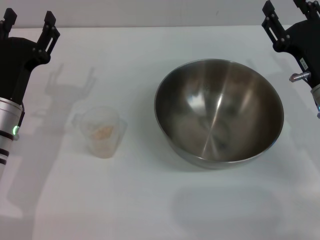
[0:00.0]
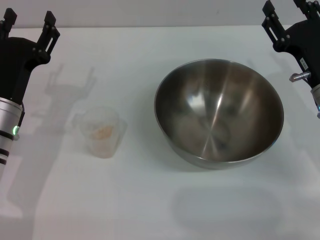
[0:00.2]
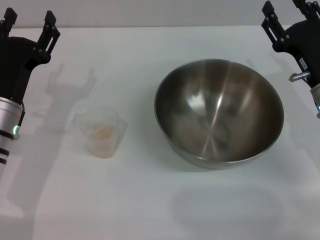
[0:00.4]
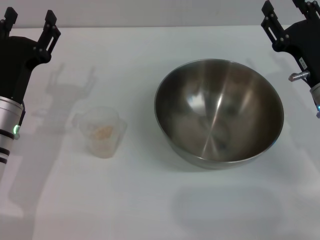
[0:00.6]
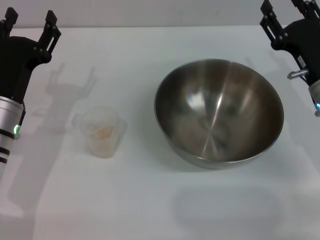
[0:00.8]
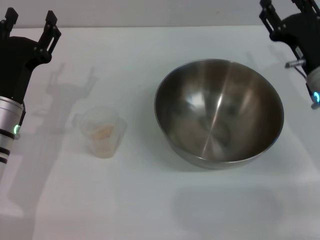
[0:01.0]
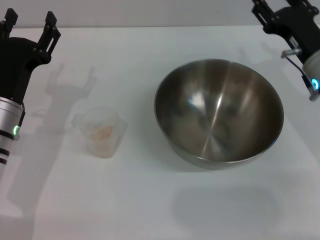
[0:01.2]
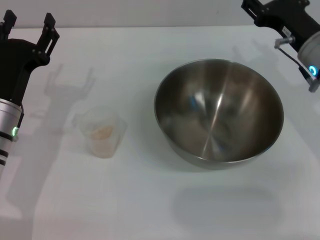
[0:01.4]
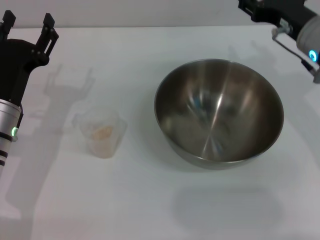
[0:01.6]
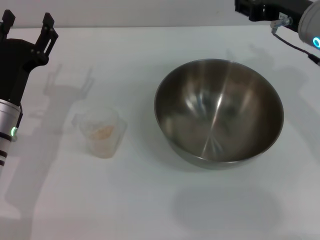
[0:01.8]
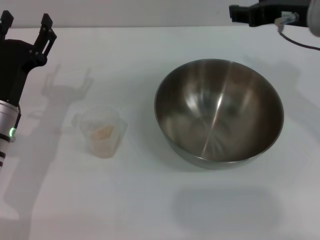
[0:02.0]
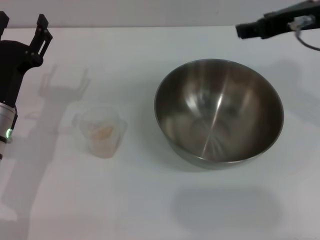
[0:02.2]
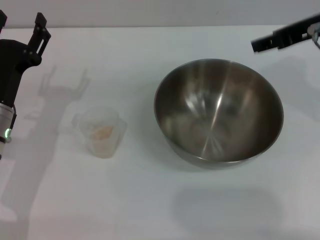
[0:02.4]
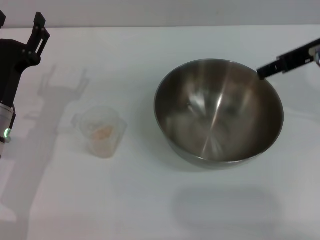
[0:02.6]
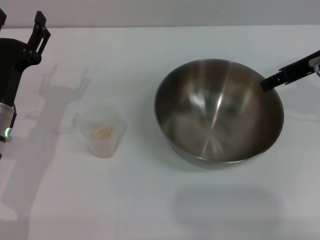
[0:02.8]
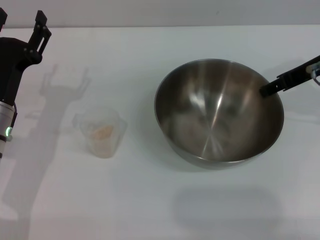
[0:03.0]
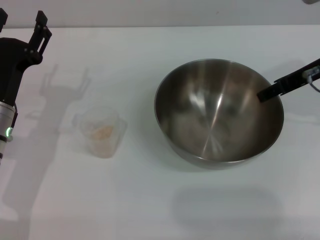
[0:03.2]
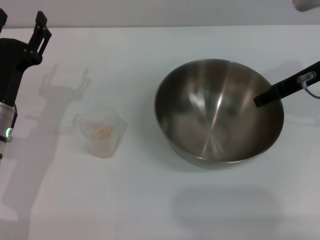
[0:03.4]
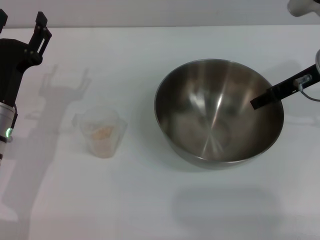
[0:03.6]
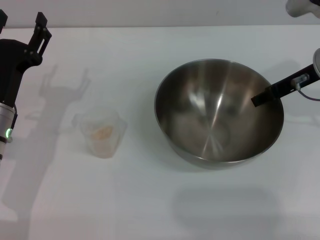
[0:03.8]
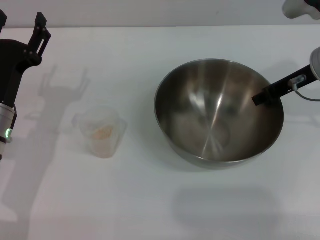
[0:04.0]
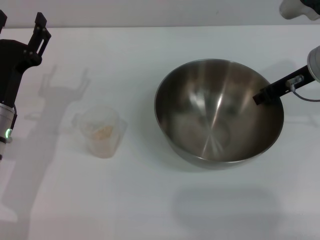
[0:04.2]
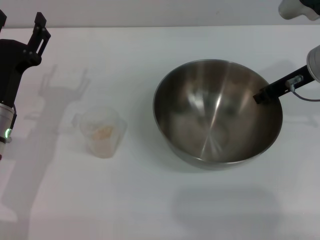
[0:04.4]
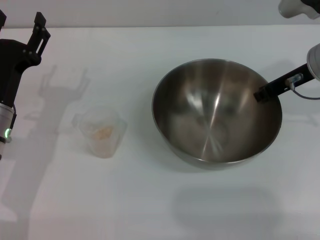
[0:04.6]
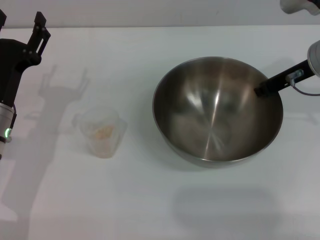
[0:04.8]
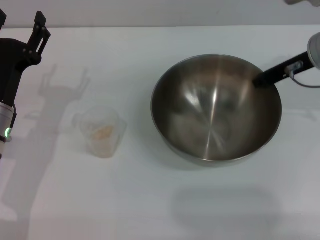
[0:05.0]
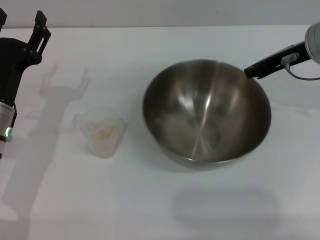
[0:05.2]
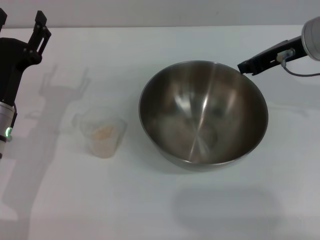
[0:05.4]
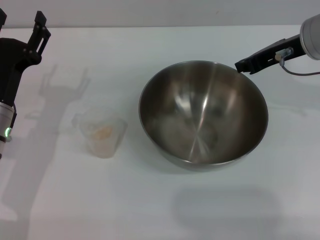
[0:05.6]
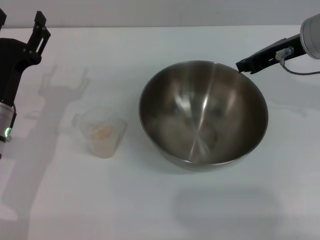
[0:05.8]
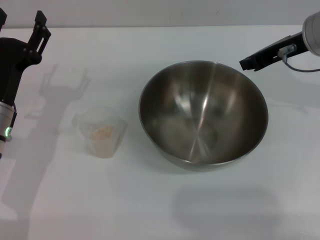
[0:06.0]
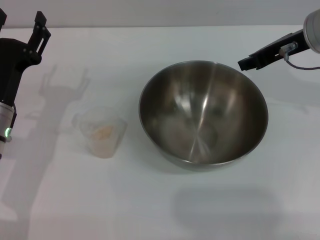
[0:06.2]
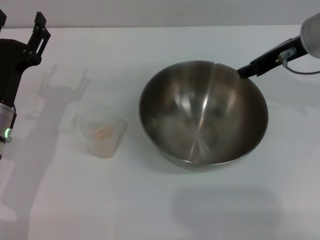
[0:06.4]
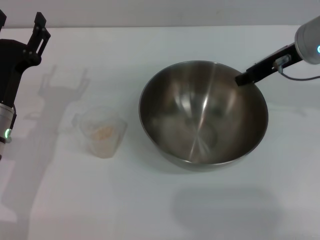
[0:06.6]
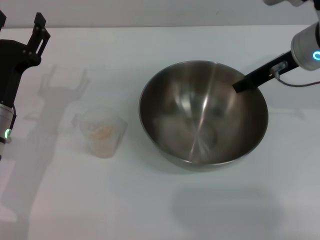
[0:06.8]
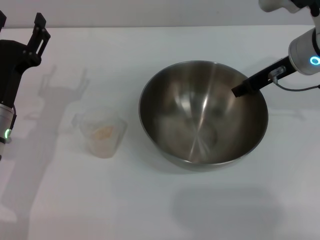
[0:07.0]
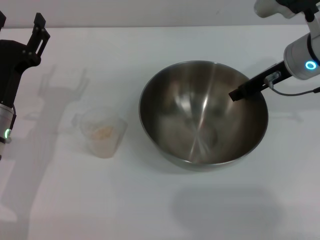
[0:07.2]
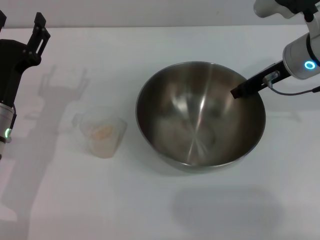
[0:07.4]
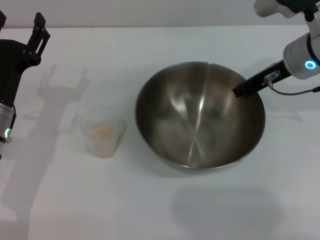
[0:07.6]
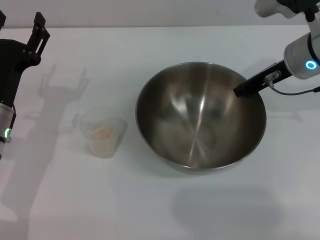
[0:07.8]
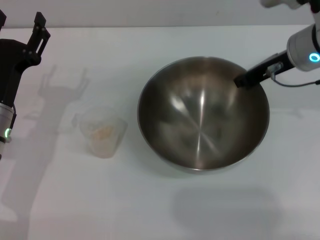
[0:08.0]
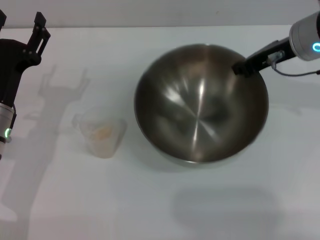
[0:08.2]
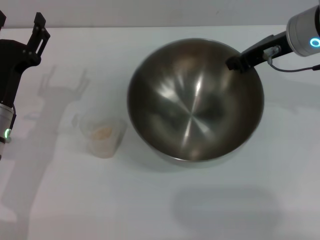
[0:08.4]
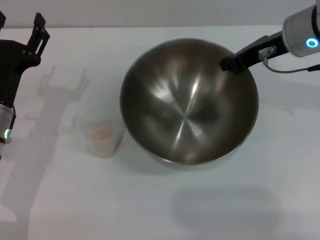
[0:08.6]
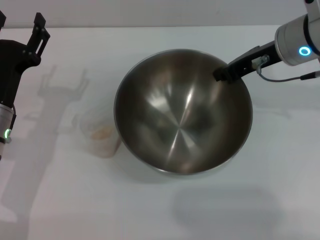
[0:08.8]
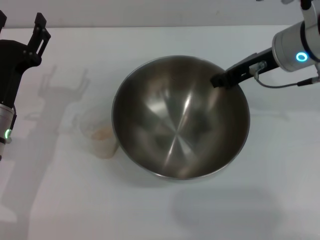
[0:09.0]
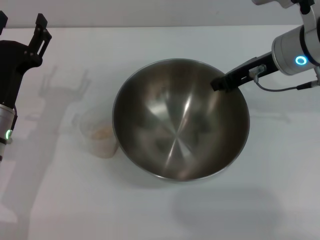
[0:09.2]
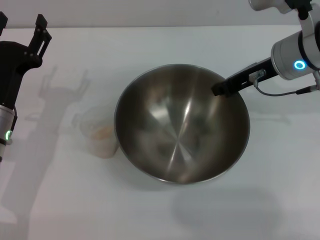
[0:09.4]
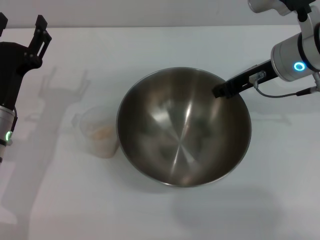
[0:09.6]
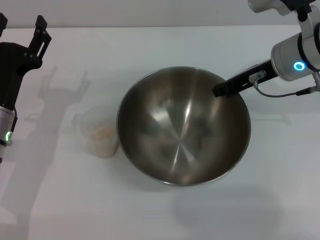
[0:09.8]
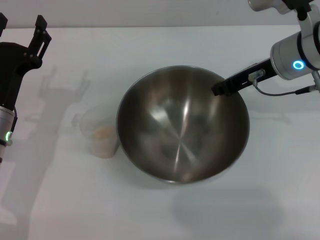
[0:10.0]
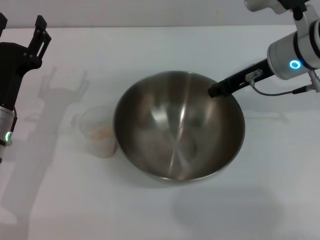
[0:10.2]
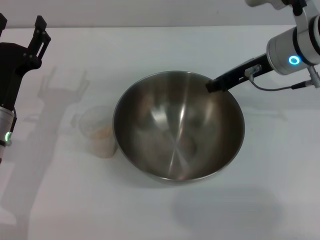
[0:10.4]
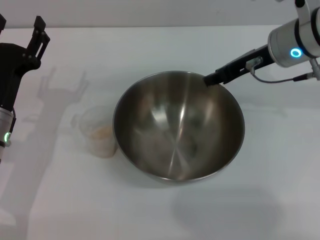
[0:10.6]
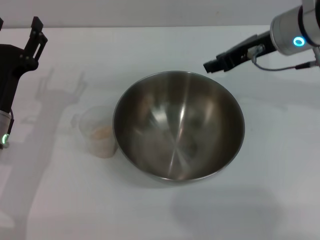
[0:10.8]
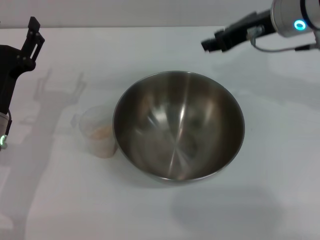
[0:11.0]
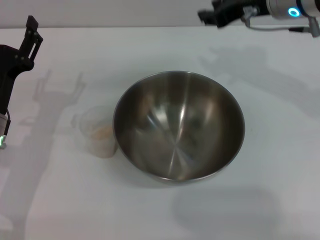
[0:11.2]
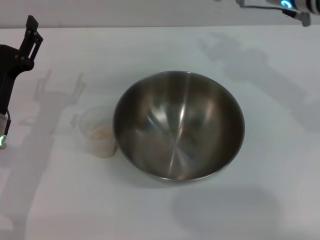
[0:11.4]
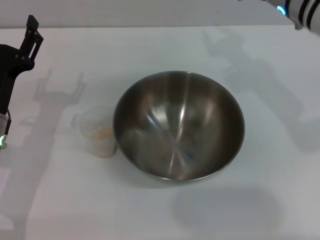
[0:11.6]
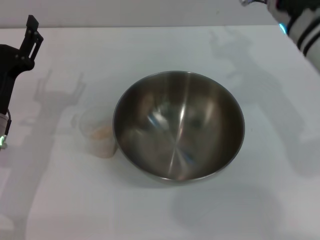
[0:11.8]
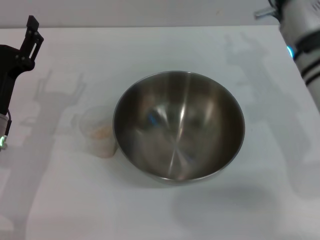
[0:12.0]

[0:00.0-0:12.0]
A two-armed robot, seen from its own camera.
Task of the whole recording: Place the bowl in the middle of the table with one hand and pour the rice from the grain cup into it with the other hand.
Step, 0:00.0 to 0:08.8: Pick up the bowl with the right gripper.
Step, 0:09.2 to 0:10.8: Place the bowl in the center of view with the right gripper.
0:00.0 to 0:01.6: The right gripper moves upward, about 10 cm.
0:03.0 to 0:04.4: The right gripper closes up.
0:04.4 to 0:06.0: There are only small adjustments of the grippers.
0:06.0 to 0:07.6: The right gripper opens and closes again.
0:09.0 to 0:10.4: The grippers move only a little.
0:10.4 to 0:12.0: The right gripper shifts roughly 5 cm backward, moves about 5 cm upward and comes back, and opens up.

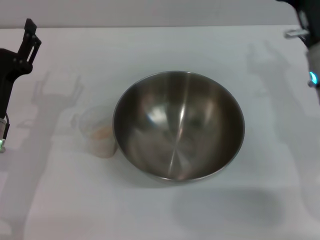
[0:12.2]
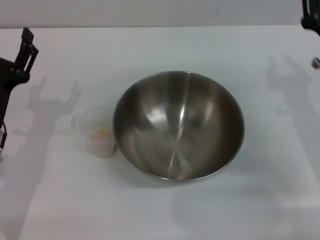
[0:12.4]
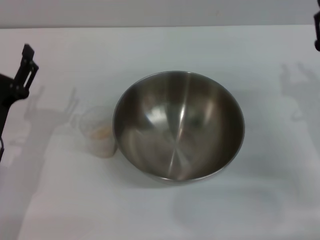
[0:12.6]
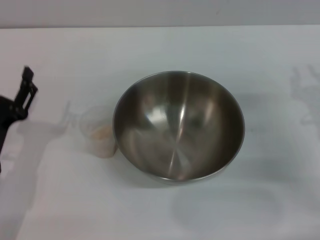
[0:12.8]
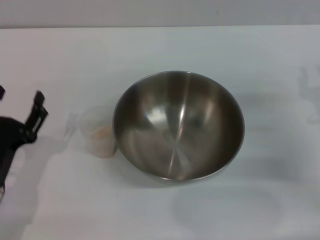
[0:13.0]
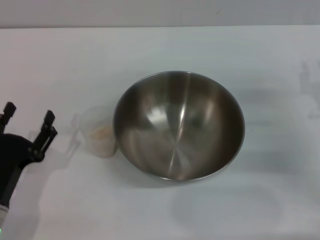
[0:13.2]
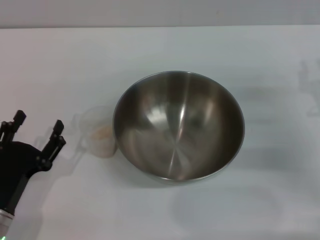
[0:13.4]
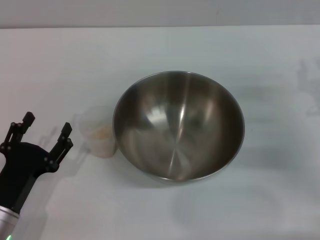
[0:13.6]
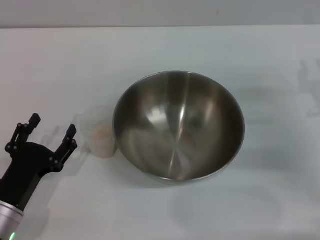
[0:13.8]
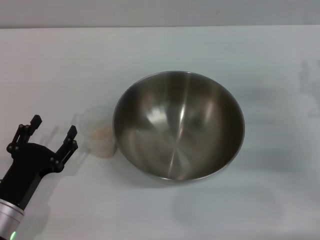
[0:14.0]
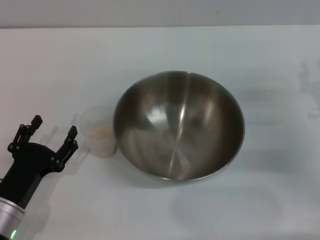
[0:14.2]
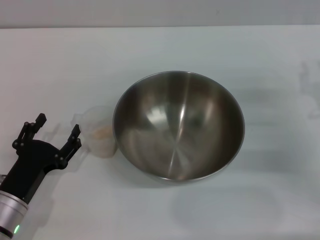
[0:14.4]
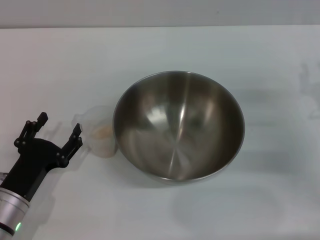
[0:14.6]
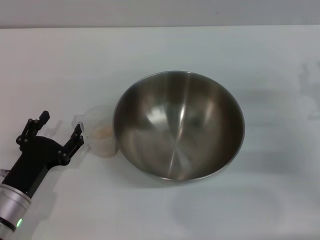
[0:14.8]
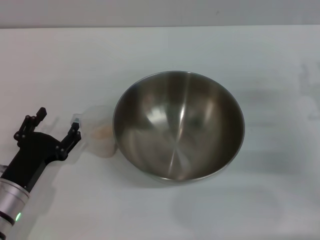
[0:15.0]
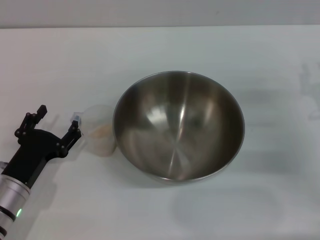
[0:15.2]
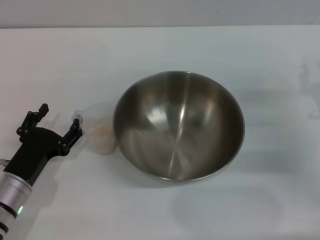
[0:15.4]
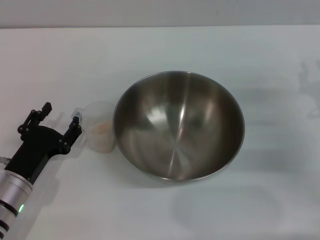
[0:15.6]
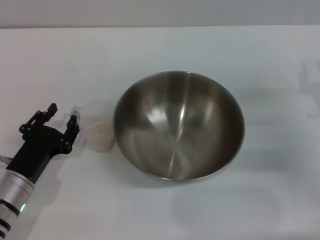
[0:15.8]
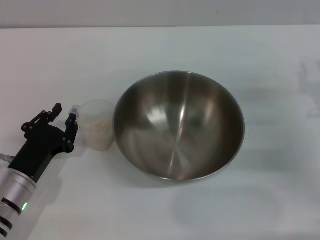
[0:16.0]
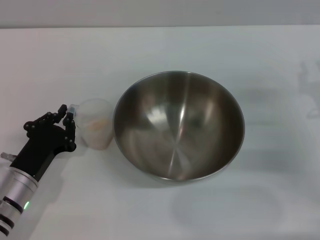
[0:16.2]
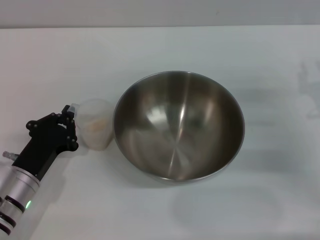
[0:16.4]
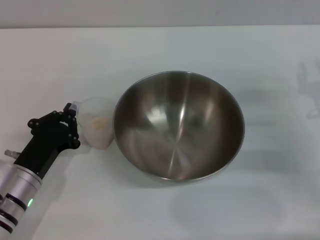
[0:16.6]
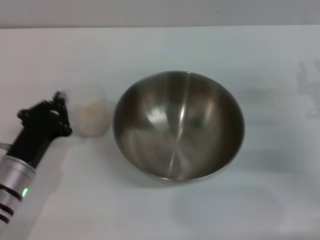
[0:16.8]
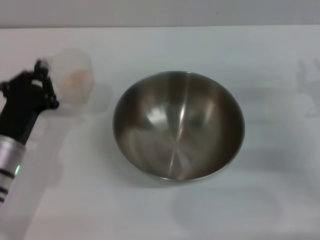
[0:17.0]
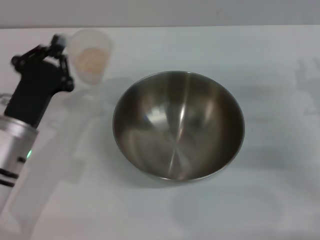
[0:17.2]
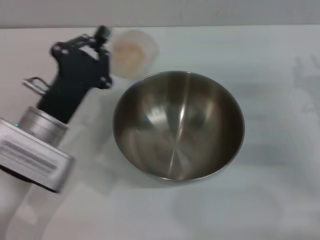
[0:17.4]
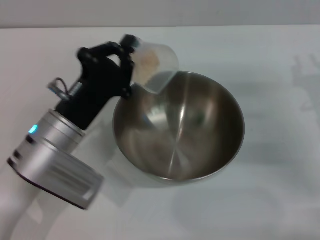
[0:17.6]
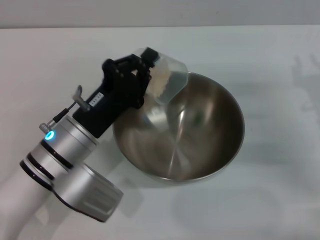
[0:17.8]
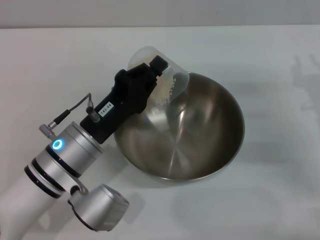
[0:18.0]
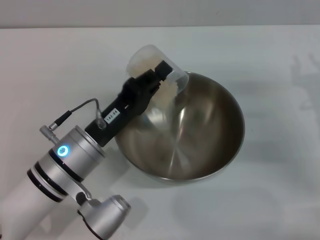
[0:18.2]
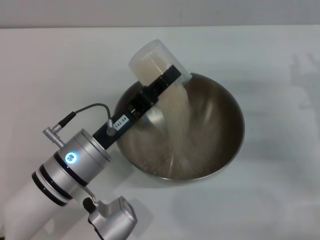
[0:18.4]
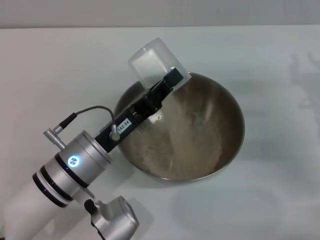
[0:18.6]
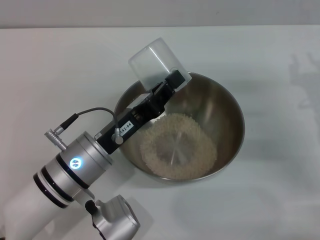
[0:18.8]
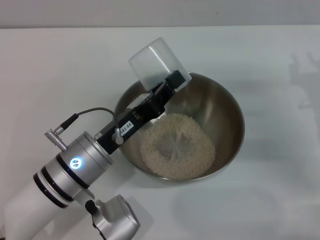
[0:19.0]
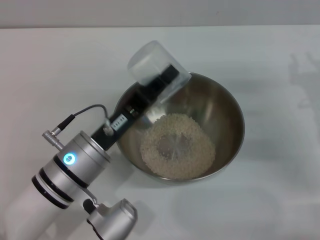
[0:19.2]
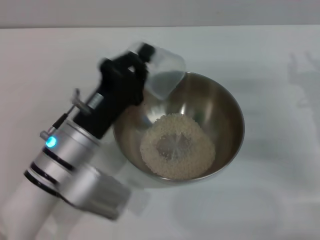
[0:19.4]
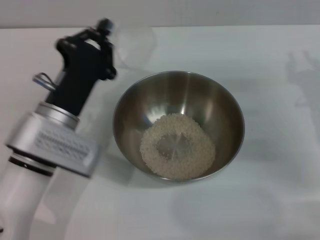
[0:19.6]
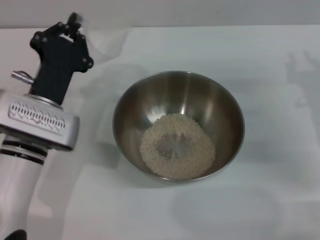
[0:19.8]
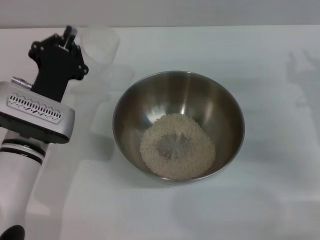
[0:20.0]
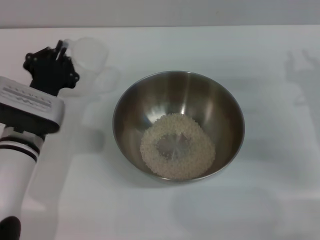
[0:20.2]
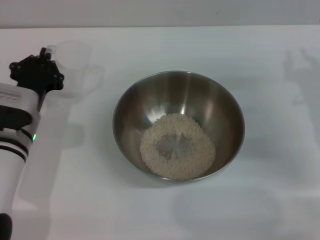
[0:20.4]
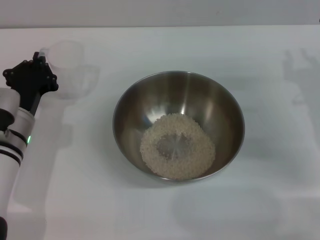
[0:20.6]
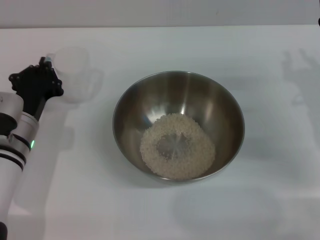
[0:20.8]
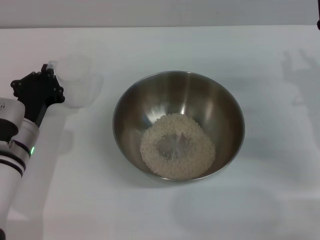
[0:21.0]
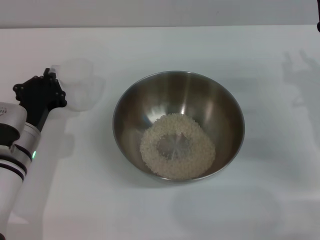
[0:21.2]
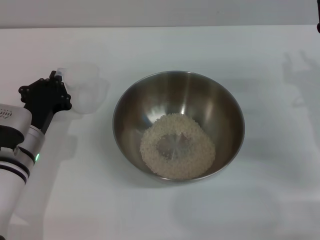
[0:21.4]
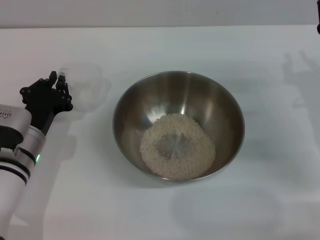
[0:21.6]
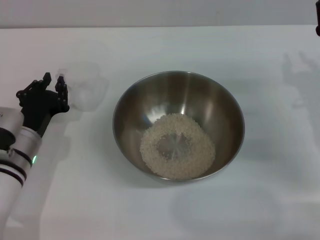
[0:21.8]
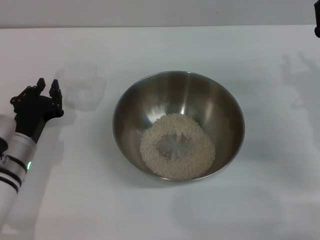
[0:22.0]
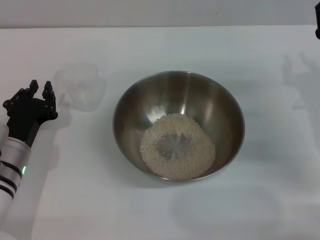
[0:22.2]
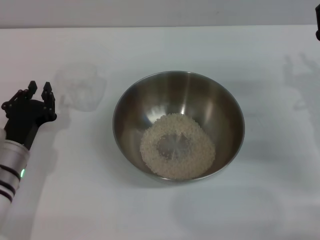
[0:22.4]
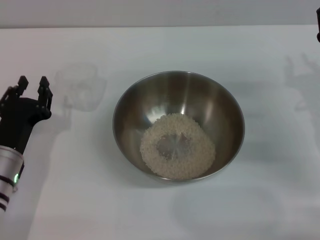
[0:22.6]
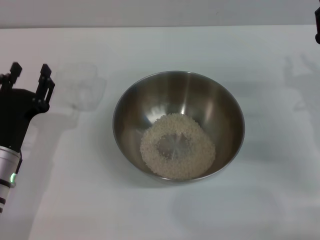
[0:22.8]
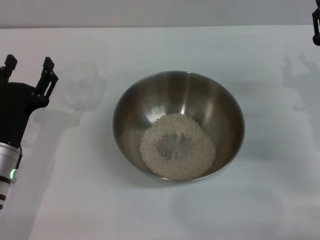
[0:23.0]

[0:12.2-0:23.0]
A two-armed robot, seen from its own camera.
Task of the whole recording: Place the bowl in the middle of the table with one hand and pour the rice from the grain cup into it with the other hand.
Step, 0:12.2 to 0:17.0: Pick up the cup with rice in it with the left gripper.
Step, 0:17.4 to 0:19.6: Pour the rice from the cup into the bowl with the left gripper.
Step, 0:19.8 to 0:22.4: Place the cup on the table with the left gripper.
0:12.2 to 0:13.8: The right gripper goes approximately 10 cm to the right and downward, while the left gripper heads backward and downward, covering approximately 10 cm.
0:13.8 to 0:15.2: The grippers make only small movements.
0:15.2 to 0:16.8: The left gripper closes its fingers.
0:16.8 to 0:18.4: The left gripper travels to the right and upward by some 10 cm.
0:18.4 to 0:20.0: The left gripper moves to the left and forward, some 5 cm.
0:20.0 to 0:21.4: The left gripper shifts by some 5 cm.
0:21.4 to 0:23.0: The left gripper ends up approximately 5 cm from where it was, and opens.
